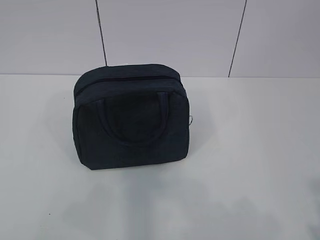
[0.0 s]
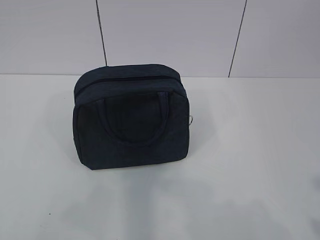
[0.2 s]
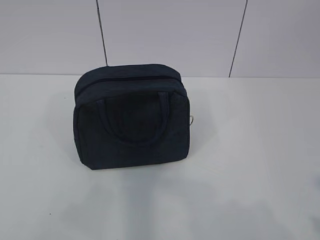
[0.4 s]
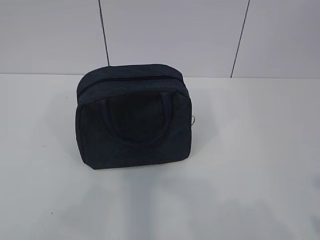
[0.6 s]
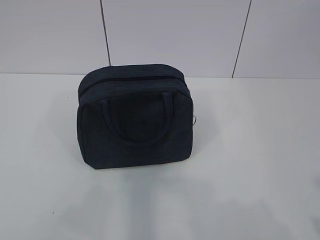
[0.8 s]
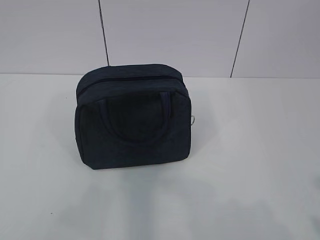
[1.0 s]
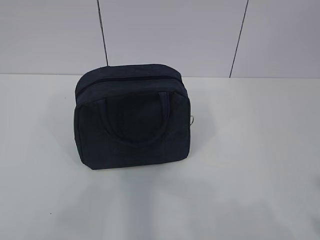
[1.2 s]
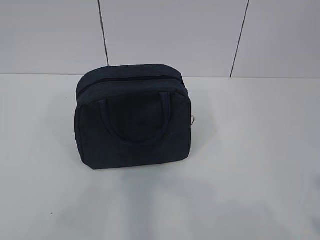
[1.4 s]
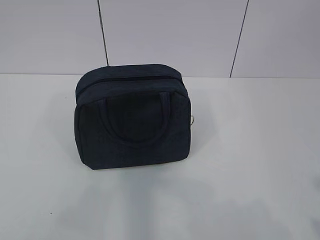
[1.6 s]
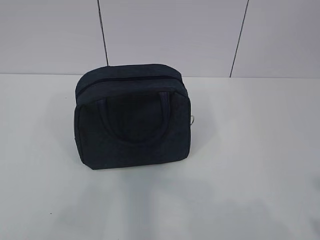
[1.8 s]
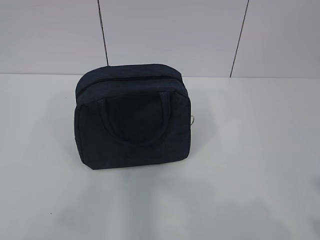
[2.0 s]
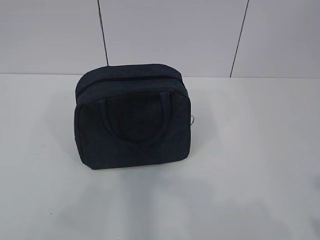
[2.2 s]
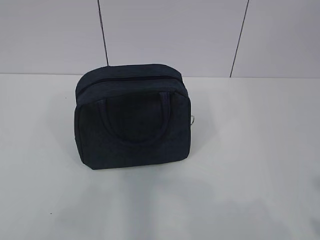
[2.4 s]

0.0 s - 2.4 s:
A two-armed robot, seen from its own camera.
0.0 s - 1.2 s: The grippers stay close to where they were, moving slightly.
1.2 s - 2.4 s: Both grippers stay about where they are.
